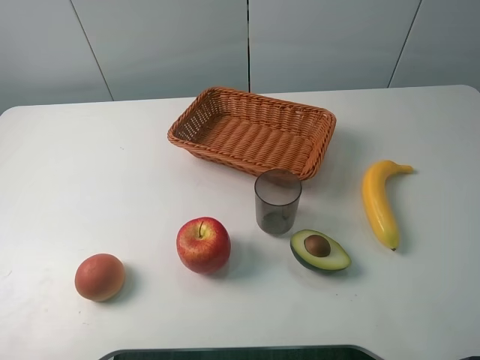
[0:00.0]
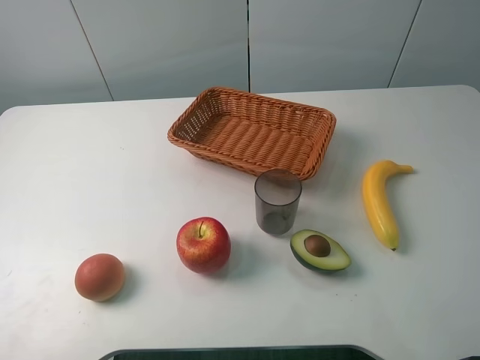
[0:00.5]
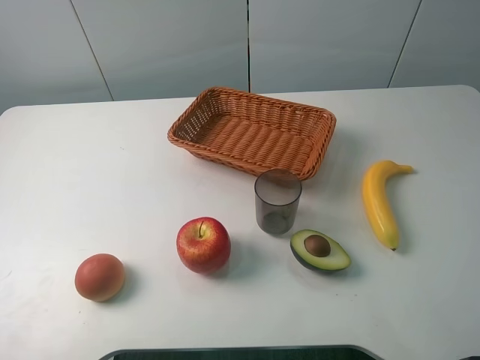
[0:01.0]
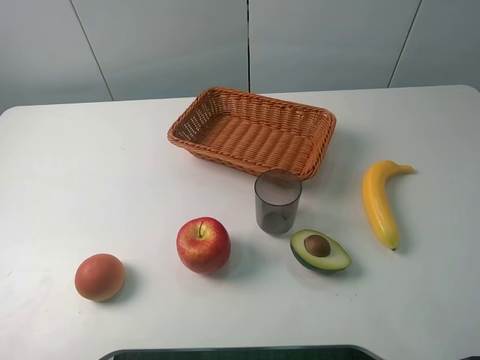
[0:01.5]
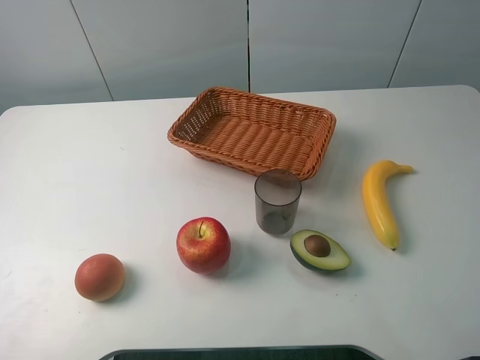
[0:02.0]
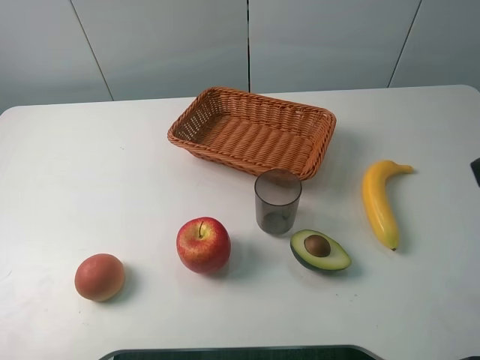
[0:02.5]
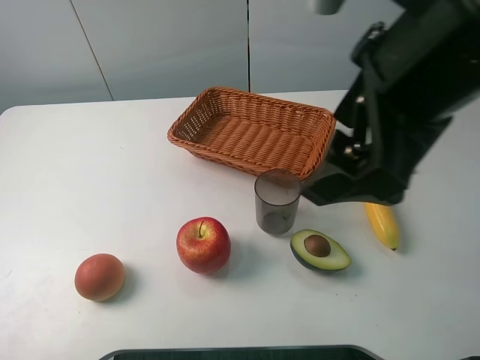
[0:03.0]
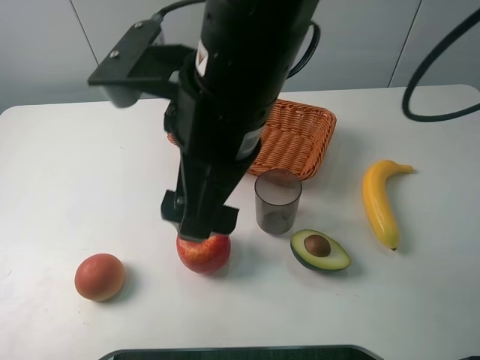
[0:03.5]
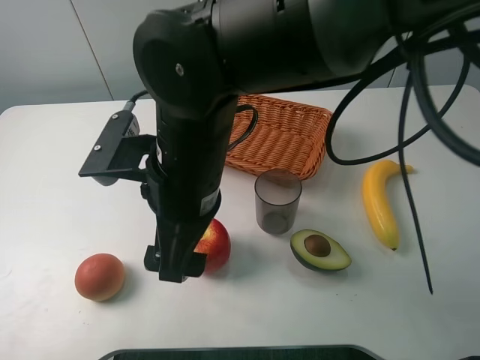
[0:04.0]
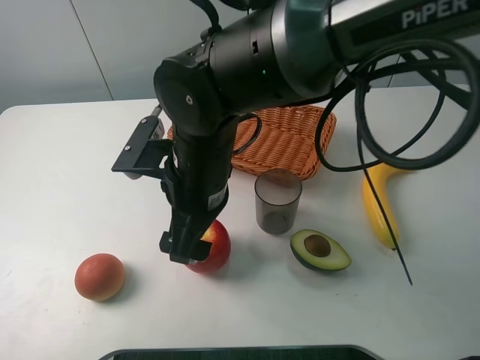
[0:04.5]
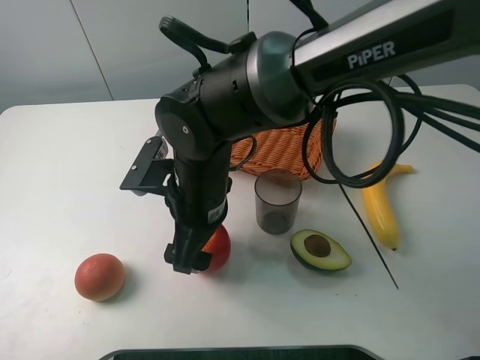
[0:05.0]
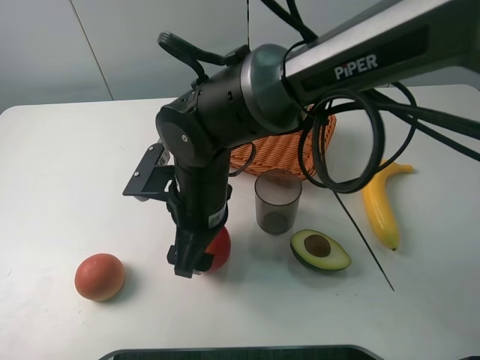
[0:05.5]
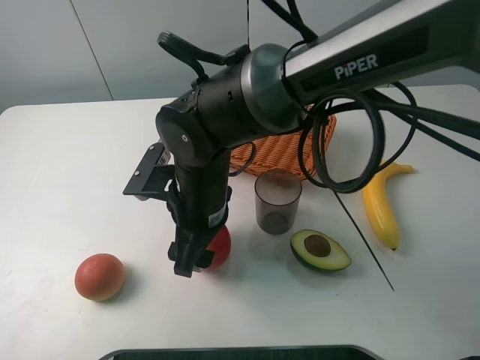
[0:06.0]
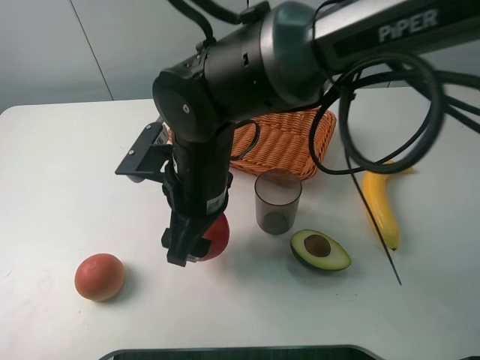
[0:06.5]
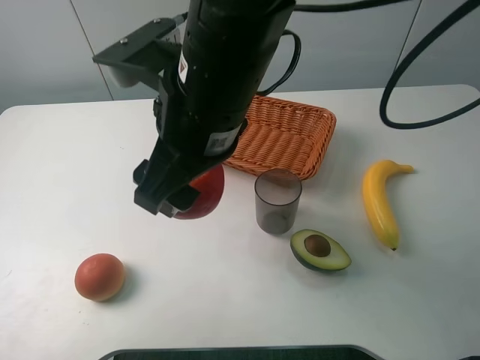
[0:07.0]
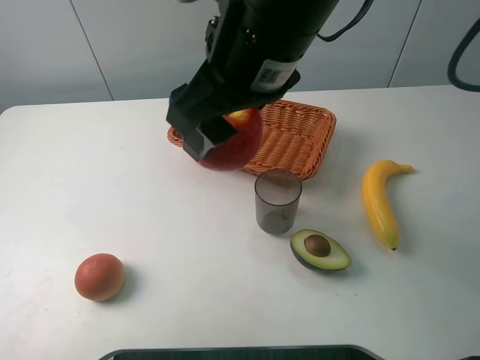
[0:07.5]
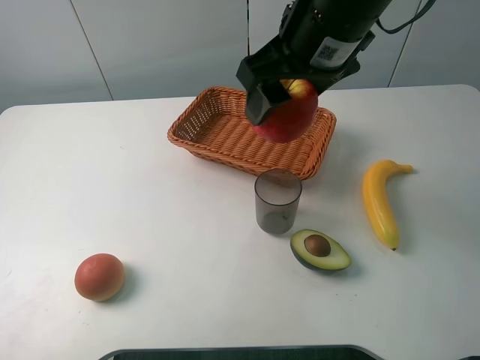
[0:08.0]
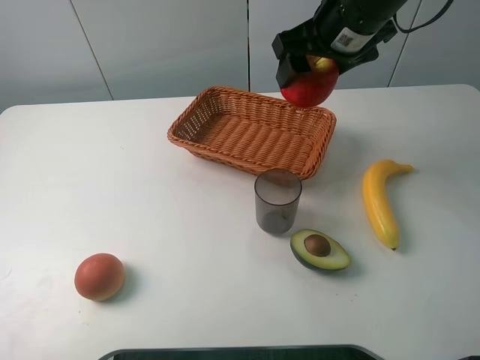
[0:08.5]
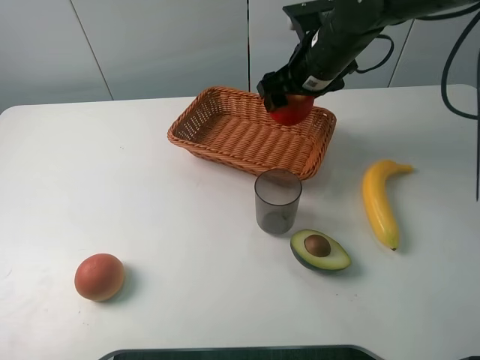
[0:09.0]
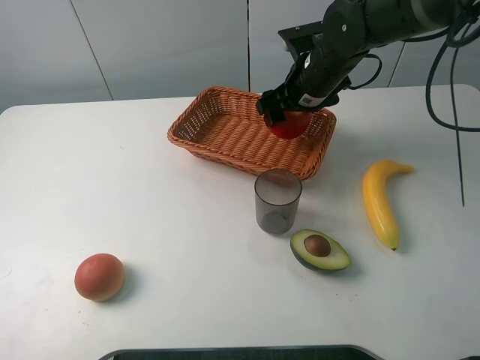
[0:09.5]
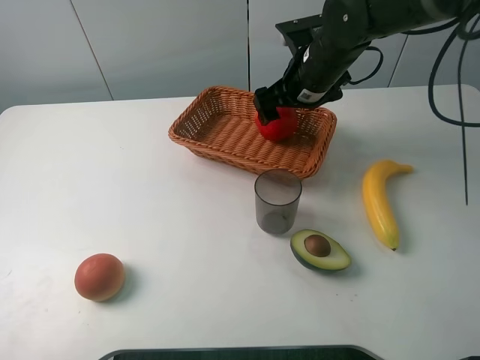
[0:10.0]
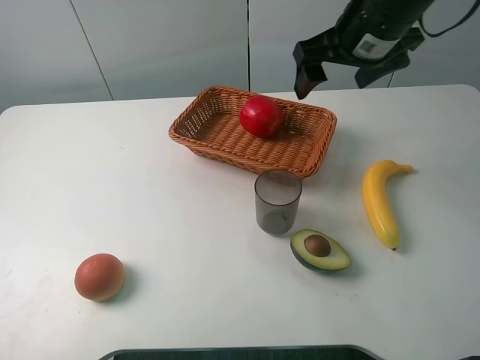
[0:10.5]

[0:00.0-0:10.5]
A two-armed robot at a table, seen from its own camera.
Task of the whole recording: randomly pick up an item from the table and put it in the basket.
Step, 0:00.0 to 0:05.5: Grasp the apple with the right gripper.
Step, 0:06.0 to 0:10.0: Place the apple into the basket with the right gripper.
0:00.0 to 0:02.0: Neither gripper changes place.
0:02.0 to 0:04.0: The right gripper heads to the left and forward, covering approximately 35 cm.
0:04.0 to 0:06.5: The right gripper closes up.
0:06.5 to 0:08.5: The right gripper goes some 25 cm to the right, forward and upward.
0:08.5 to 0:10.5: The right gripper goes downward and returns, some 10 cm each way, and opens up.

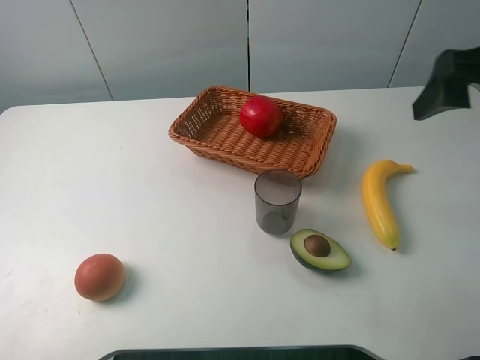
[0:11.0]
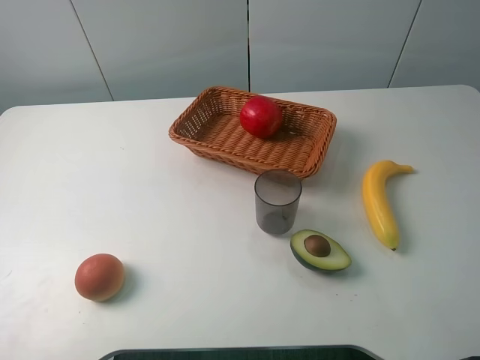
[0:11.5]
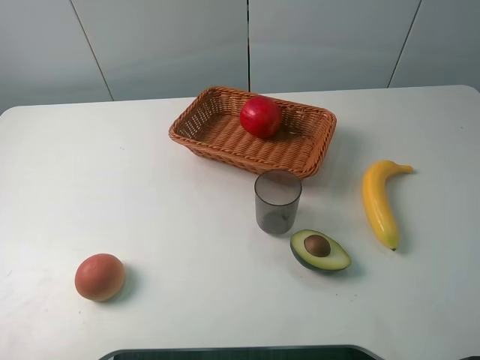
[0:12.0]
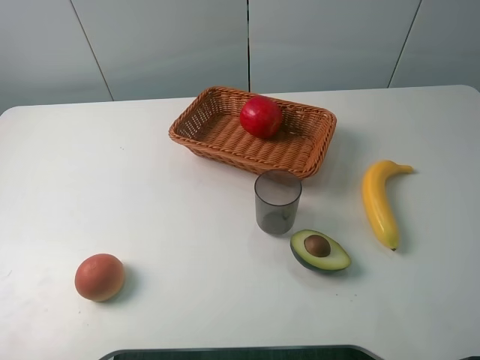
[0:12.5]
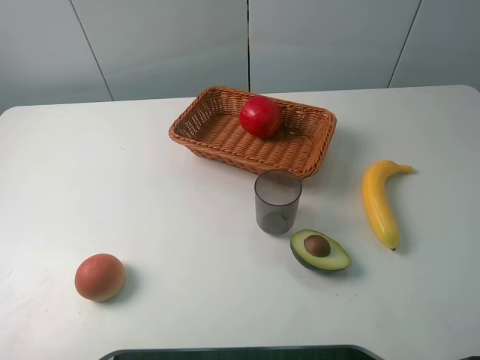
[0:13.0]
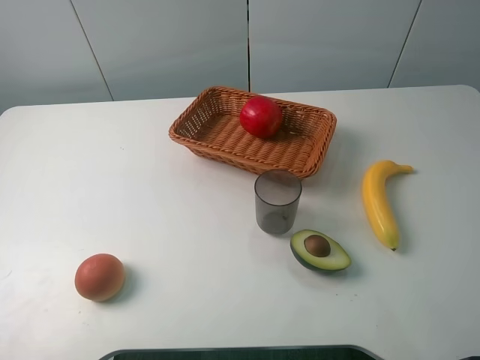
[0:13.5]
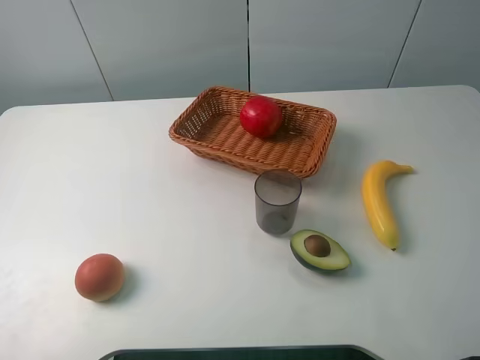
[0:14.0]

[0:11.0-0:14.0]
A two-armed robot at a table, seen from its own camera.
Task of the whole recording: randomly pick up an item from the table and put it in the basket.
0:11.0 to 0:12.5: The right gripper travels backward by about 20 cm.
0:12.5 to 0:14.0: The two grippers keep their place.

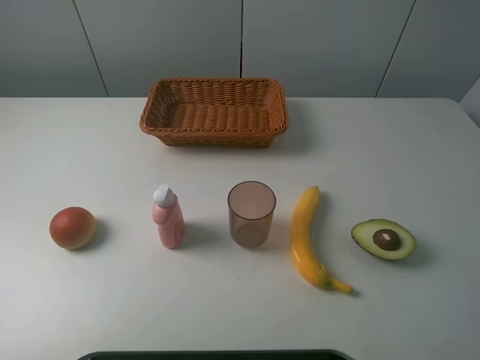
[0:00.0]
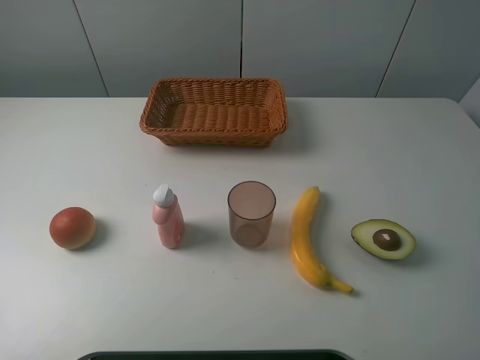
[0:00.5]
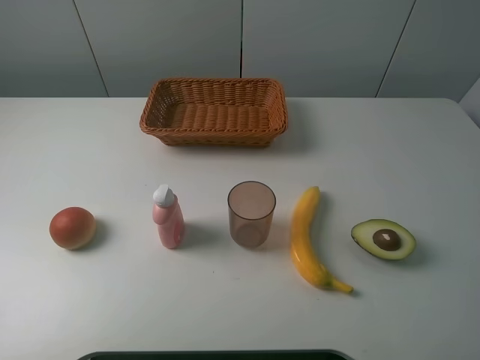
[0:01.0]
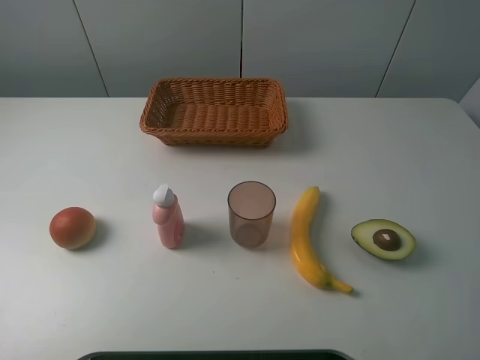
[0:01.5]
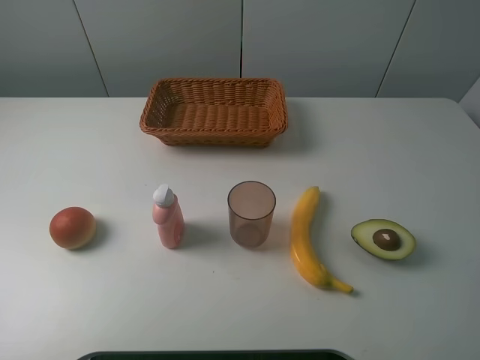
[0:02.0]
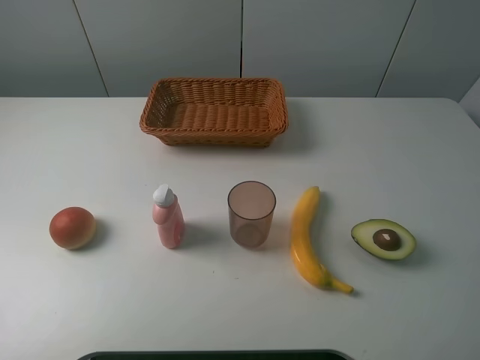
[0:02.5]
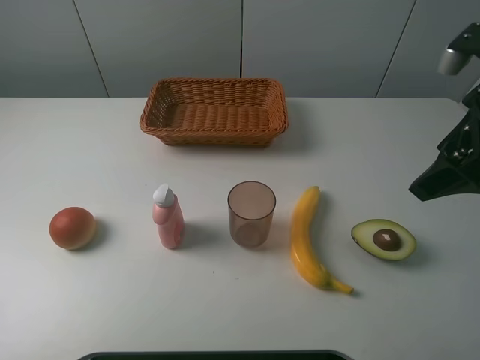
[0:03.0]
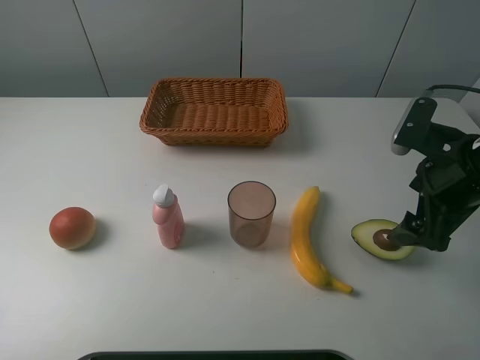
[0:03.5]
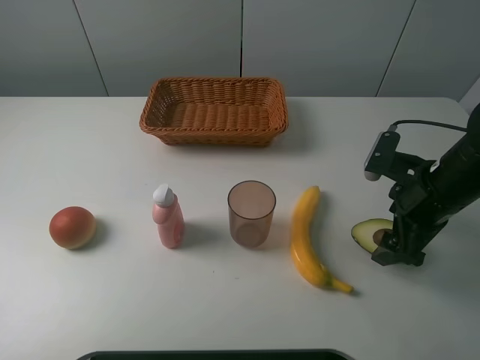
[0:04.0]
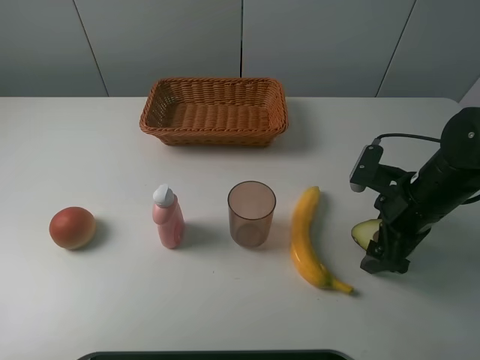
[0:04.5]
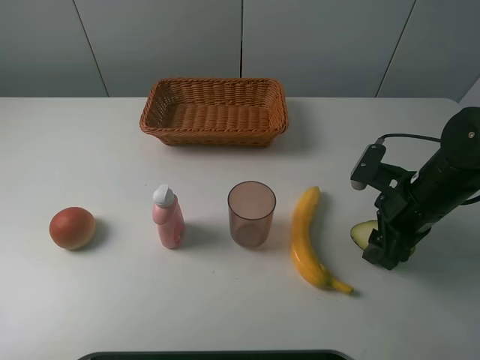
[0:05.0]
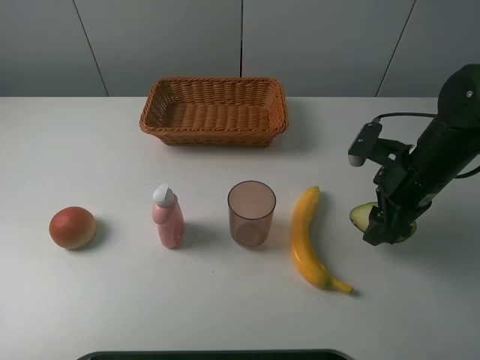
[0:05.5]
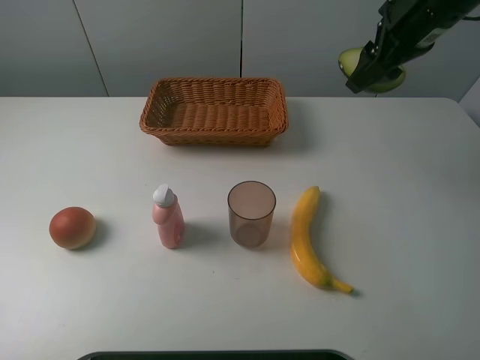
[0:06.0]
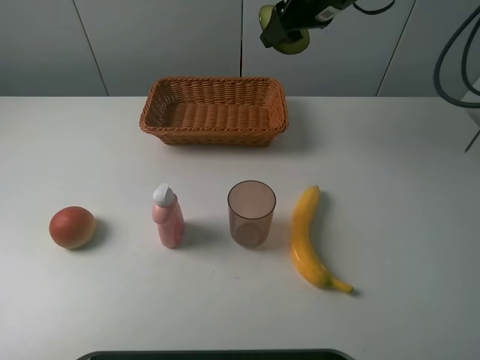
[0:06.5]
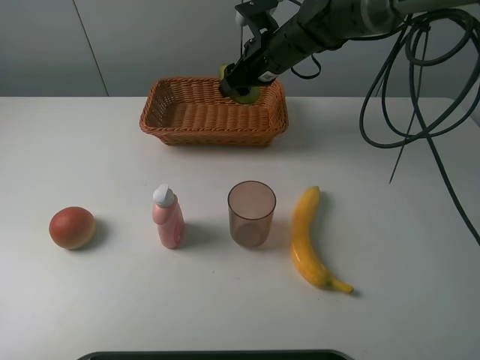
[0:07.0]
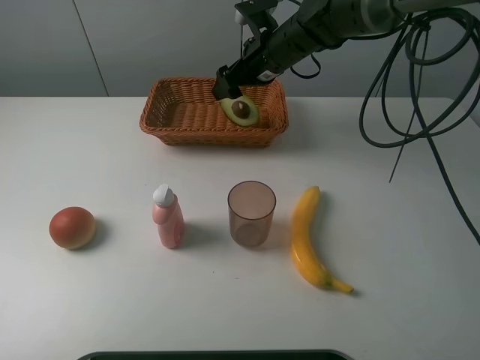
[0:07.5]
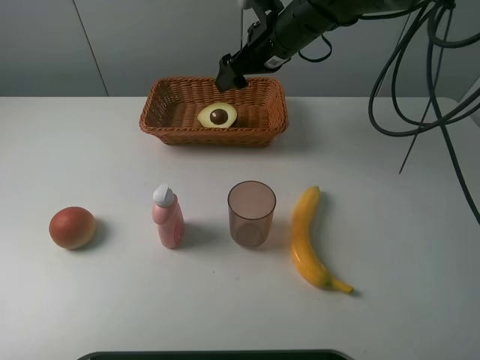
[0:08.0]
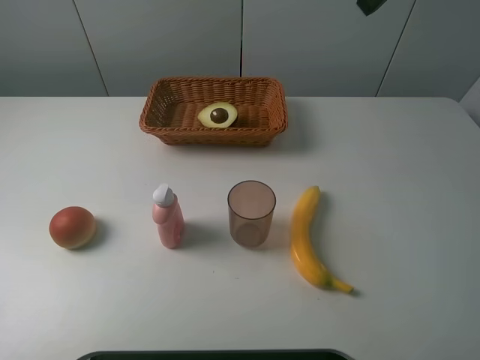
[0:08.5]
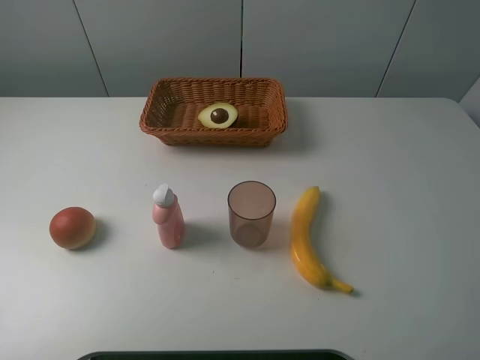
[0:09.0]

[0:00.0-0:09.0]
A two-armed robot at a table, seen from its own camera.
Task of the whole recording: randomly pick up an item from the table and put it in the basket.
Step, 0:00.0 to 0:04.5: Grasp the avocado with the right gripper.
Step, 0:05.0 to 0:08.0: Place the avocado into the basket with the right gripper.
0:02.0 to 0:04.5: The right gripper is displaced forward and downward by roughly 30 cm.
0:04.5 to 0:07.0: The right gripper goes approximately 30 cm forward and to the left, and closes up.
0:07.0 to 0:09.0: The right gripper is displaced backward, upward and to the right by about 50 cm, and opens its fingers.

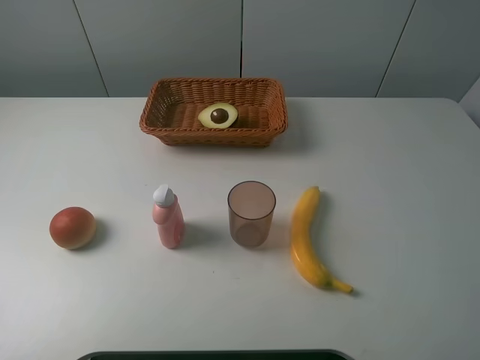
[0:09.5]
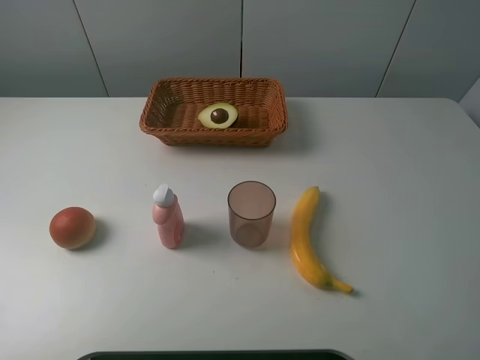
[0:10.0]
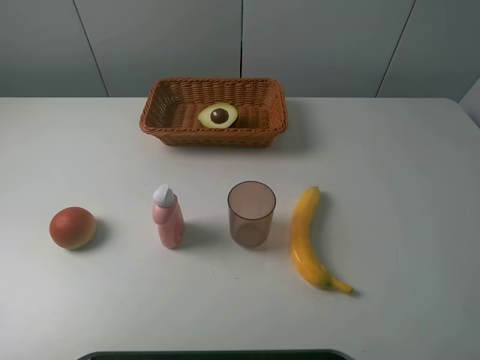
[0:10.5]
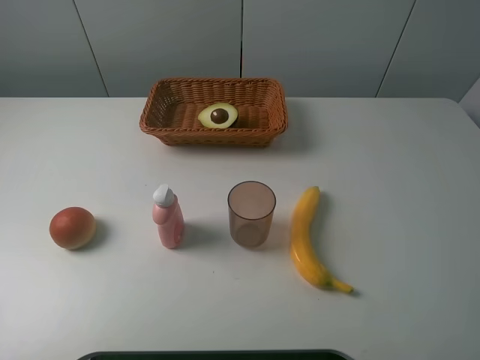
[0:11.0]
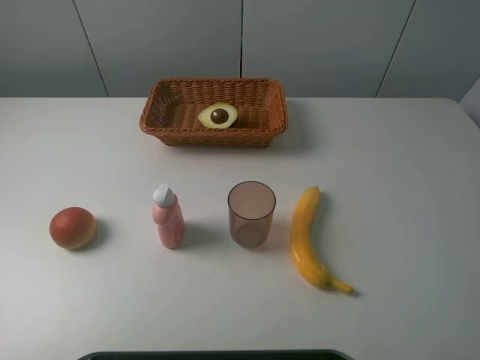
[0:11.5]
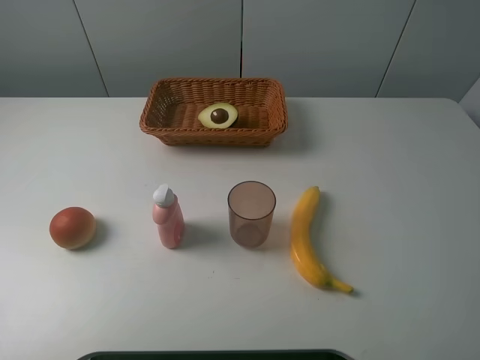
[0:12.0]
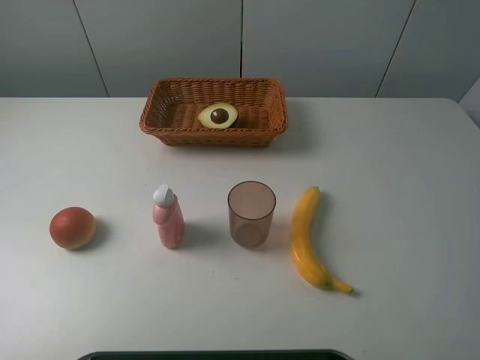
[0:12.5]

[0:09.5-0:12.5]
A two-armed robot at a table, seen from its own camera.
Task of the whole recording: randomly pick up an item from the table and put it in the basket.
0:11.0 to 0:12.5: Both grippers stay about where they are.
